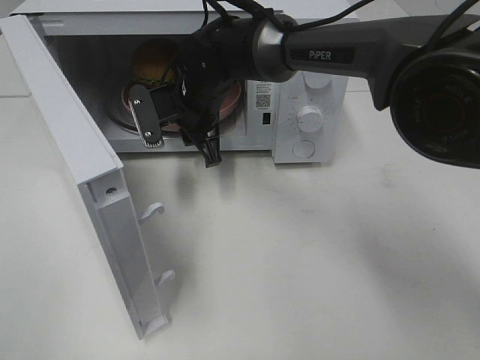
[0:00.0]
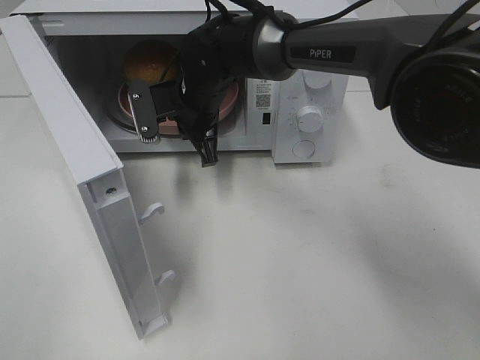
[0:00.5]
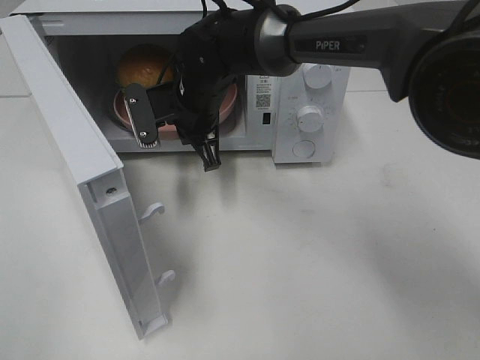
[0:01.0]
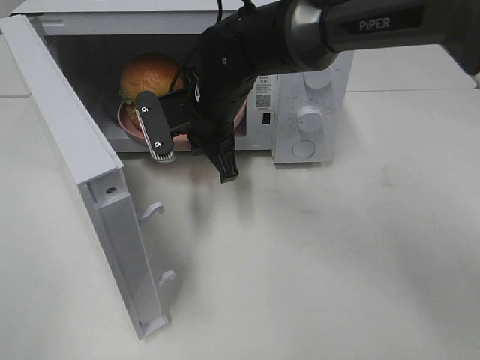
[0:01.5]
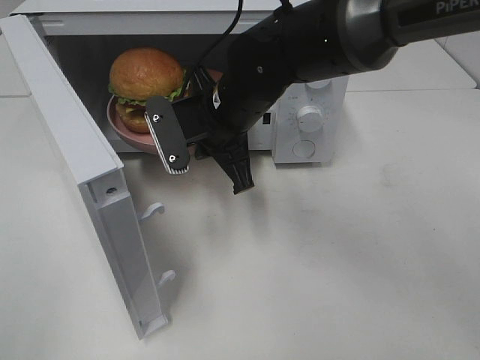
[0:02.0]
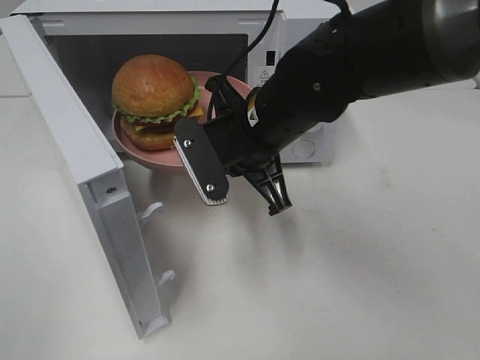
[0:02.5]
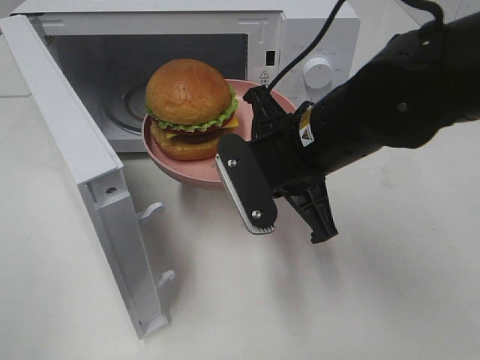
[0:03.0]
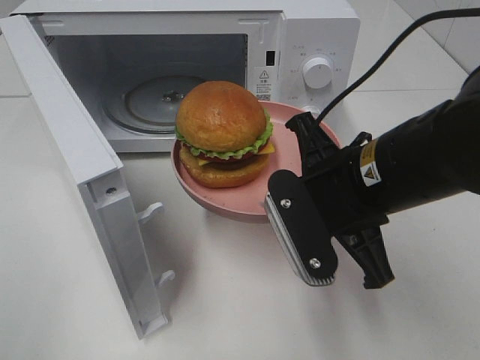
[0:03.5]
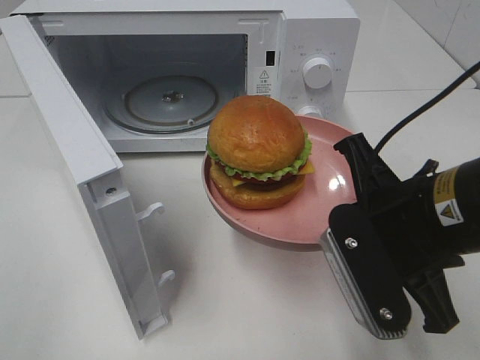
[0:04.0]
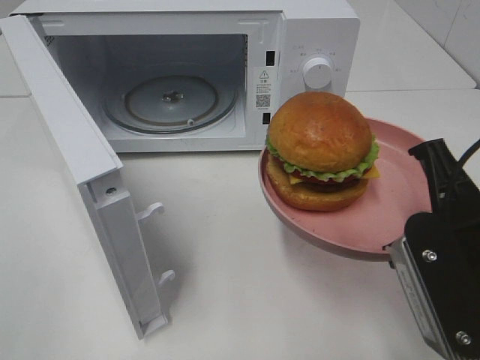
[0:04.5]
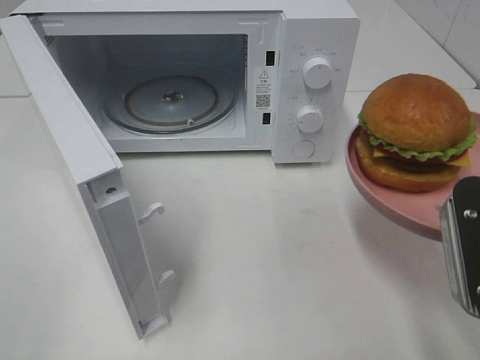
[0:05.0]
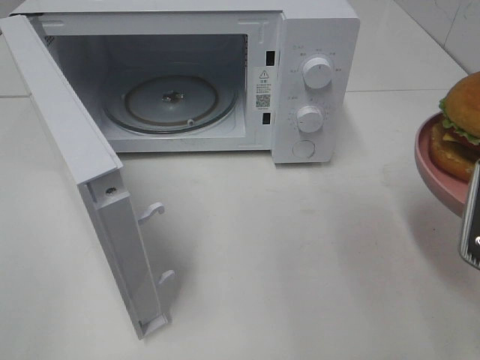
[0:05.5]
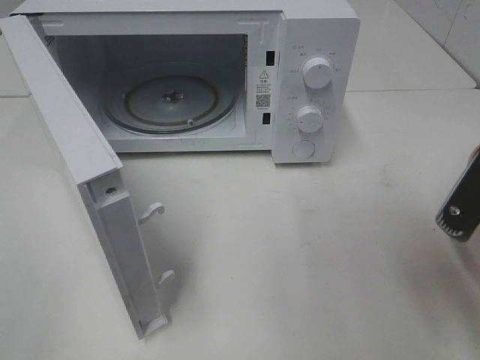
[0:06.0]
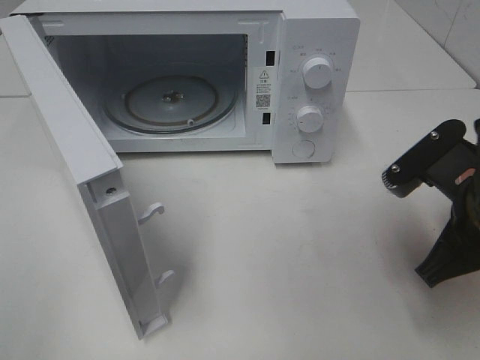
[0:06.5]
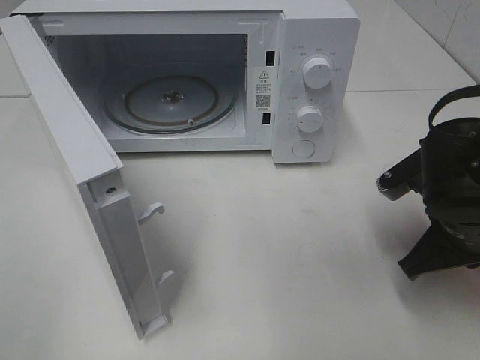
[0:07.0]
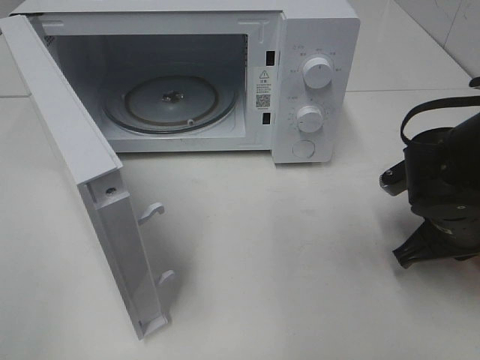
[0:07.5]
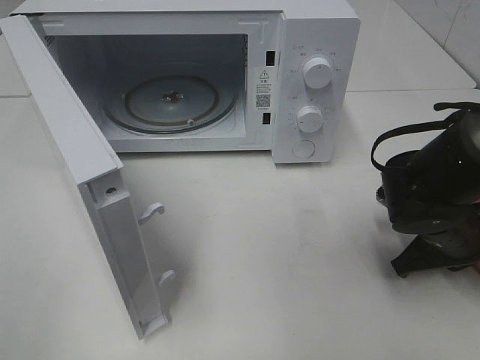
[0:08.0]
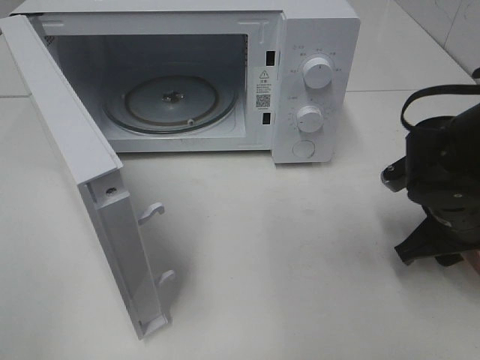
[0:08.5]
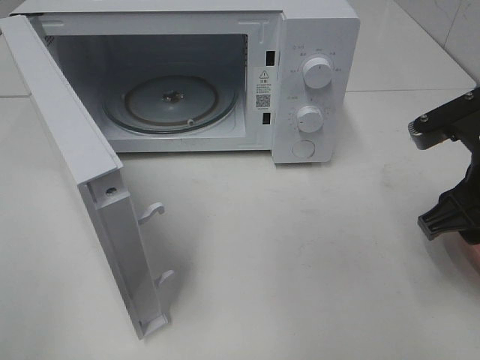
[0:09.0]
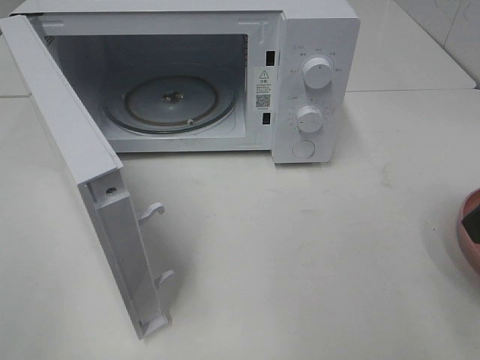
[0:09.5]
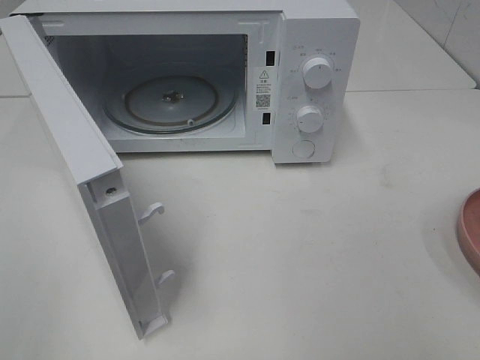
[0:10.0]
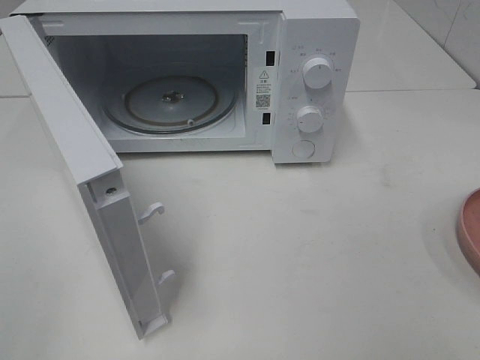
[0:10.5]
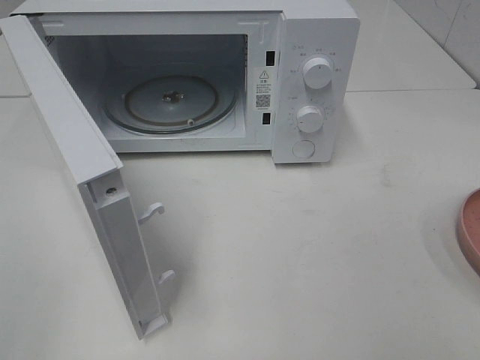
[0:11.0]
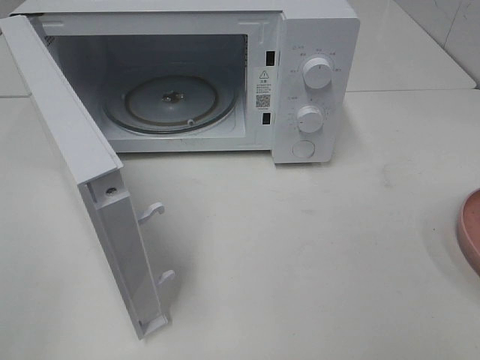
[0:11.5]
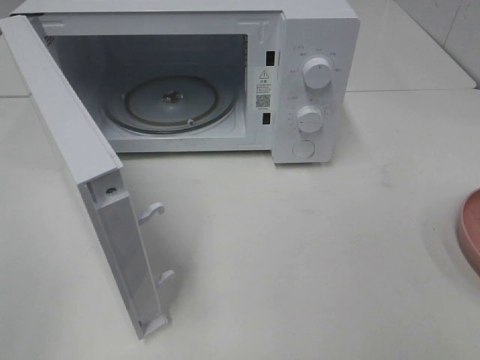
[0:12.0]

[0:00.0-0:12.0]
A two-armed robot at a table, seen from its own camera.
Task of the whole recording: Heat the burger.
Step, 0:00.5 to 0:08.0: Right hand: place the plate on the table.
0:00.0 to 0:02.0: The right gripper heads backward, covering some 10 cm.
0:02.0 to 0:04.0: The right gripper heads backward and to the right, covering roughly 25 cm.
0:04.0 to 0:06.0: The right gripper heads to the right, covering some 10 cm.
0:06.0 to 0:08.0: The right gripper is displaced downward and forward by about 15 cm.
0:08.0 to 0:10.0: The right gripper shifts approximately 30 cm upward and backward, and opens.

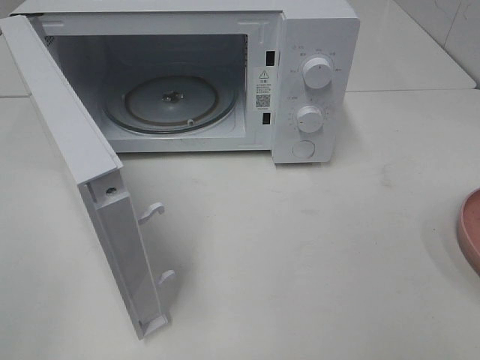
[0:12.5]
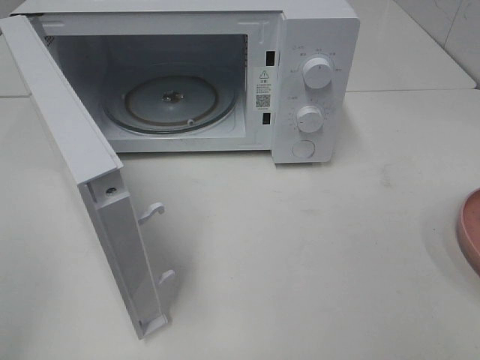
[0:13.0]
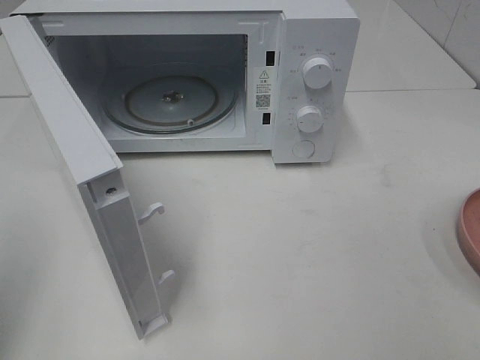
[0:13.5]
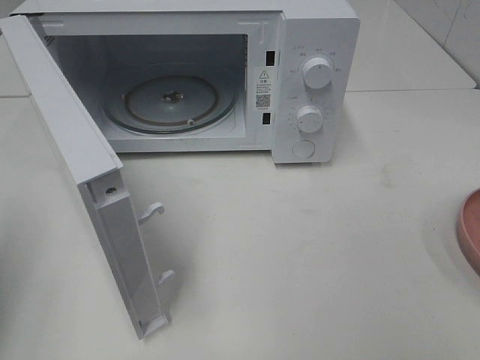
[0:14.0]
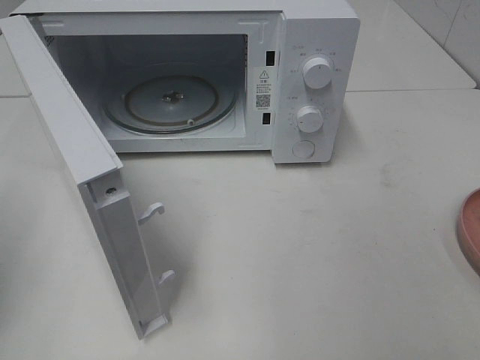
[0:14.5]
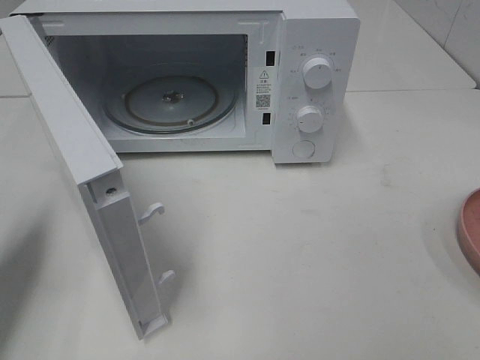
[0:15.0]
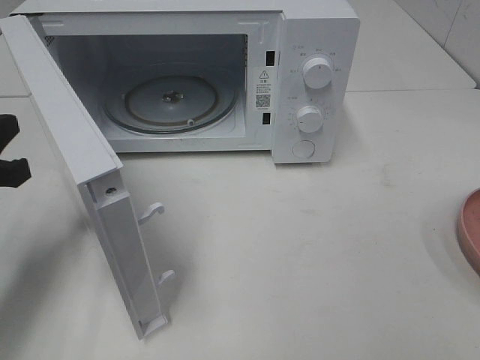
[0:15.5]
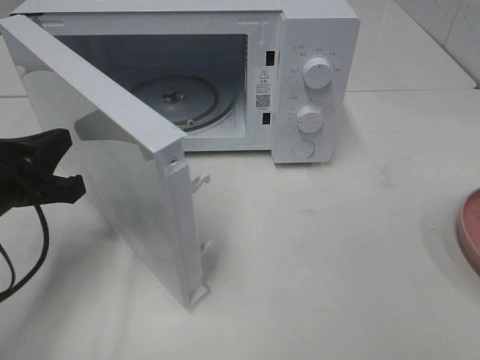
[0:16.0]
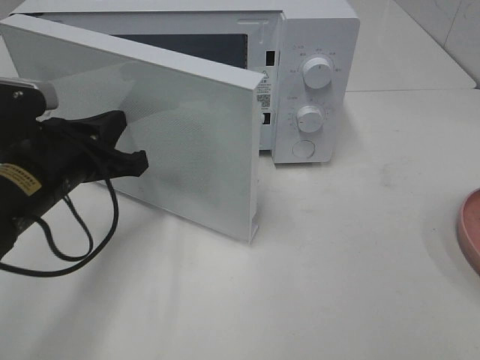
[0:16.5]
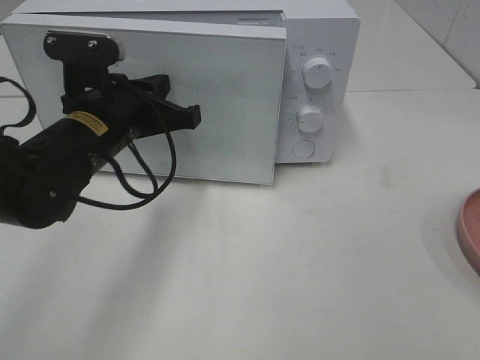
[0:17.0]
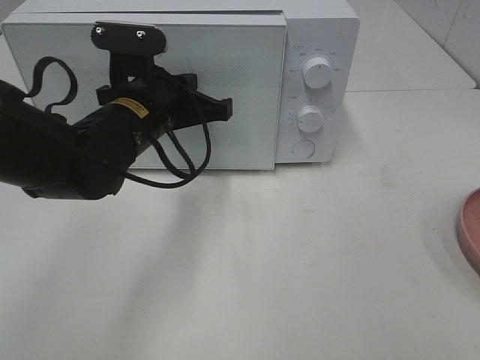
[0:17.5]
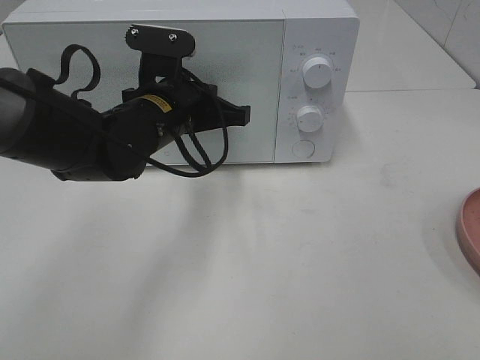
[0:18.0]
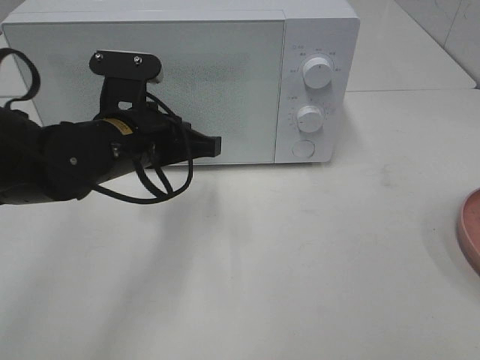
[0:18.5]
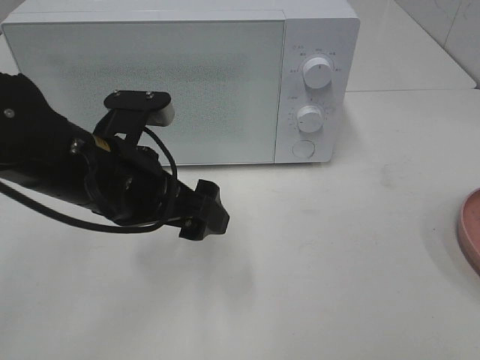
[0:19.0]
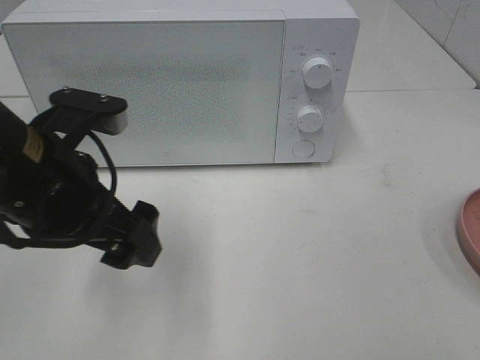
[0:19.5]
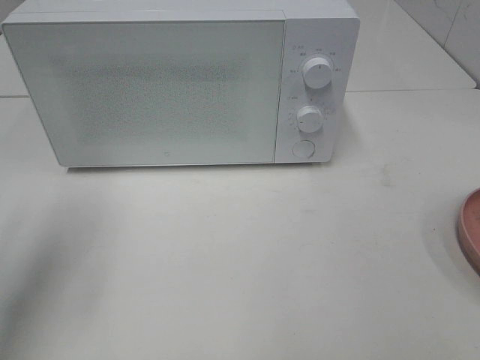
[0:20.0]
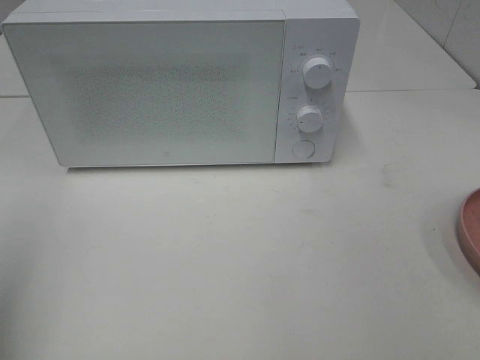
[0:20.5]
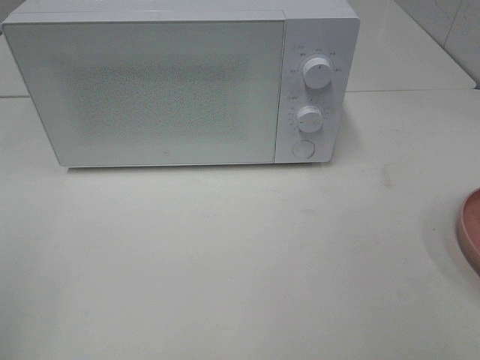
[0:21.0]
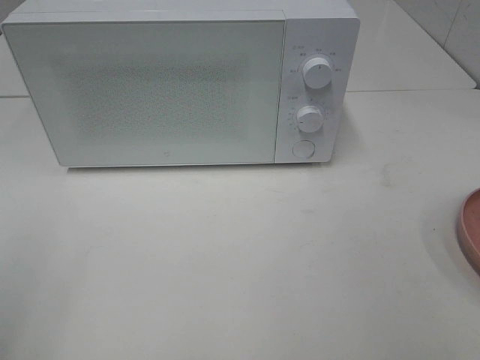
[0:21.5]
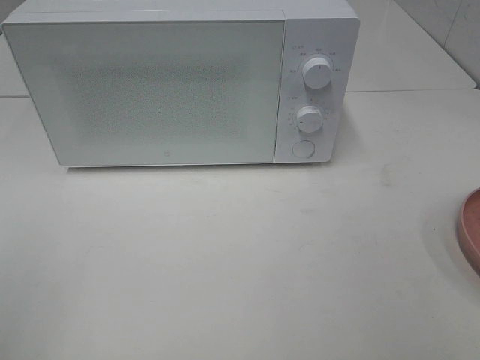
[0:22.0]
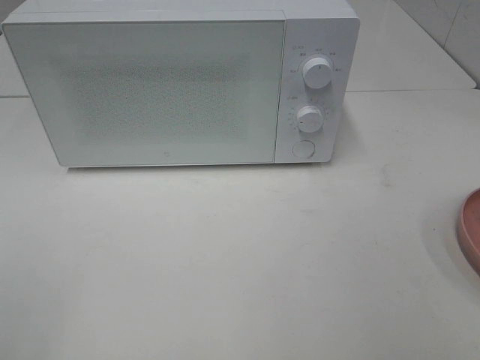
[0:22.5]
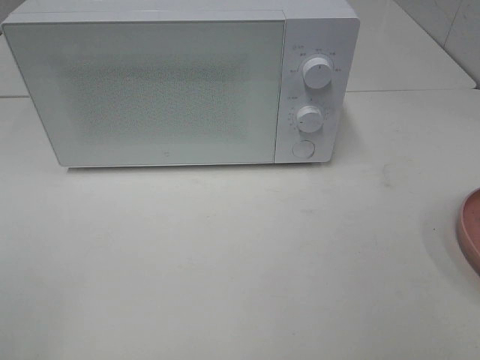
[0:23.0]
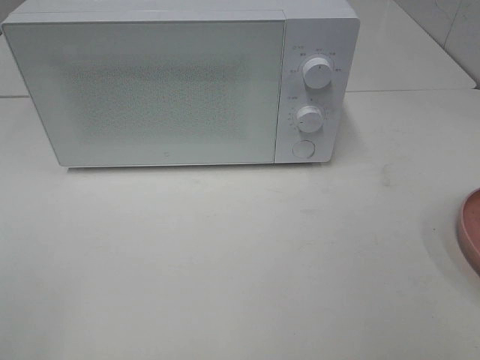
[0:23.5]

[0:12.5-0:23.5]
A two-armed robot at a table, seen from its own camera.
Task of the whole recording: Heat the burger.
Step, 0:12.5 to 0:18.5: Left hand: close the microwave door.
0:14.5 to 0:16.0: The left gripper is displaced to the right, downward and forward by roughly 15 cm.
0:16.0 to 0:18.0: The left gripper is displaced to the right and forward by approximately 20 cm.
0:18.0 to 0:20.0: The left gripper goes some 25 cm to the left, backward and upward, and opens its fingers.
0:20.0 to 0:21.5: The left gripper heads backward, covering approximately 15 cm.

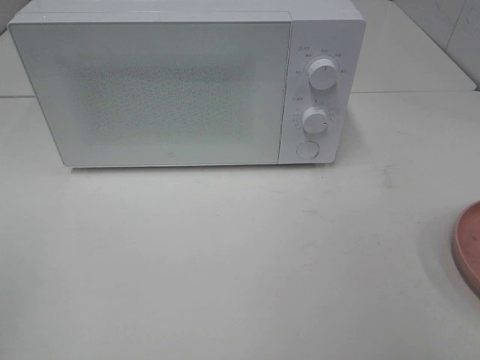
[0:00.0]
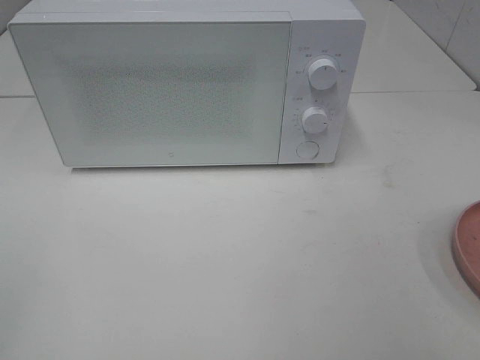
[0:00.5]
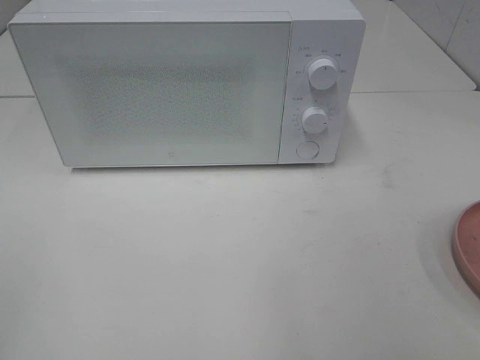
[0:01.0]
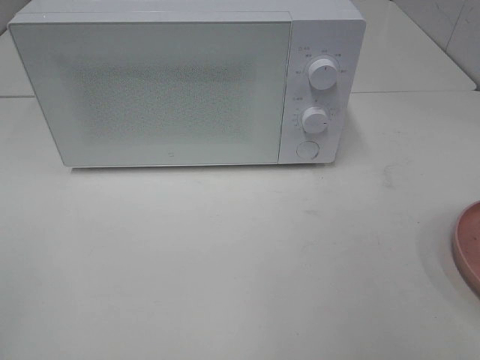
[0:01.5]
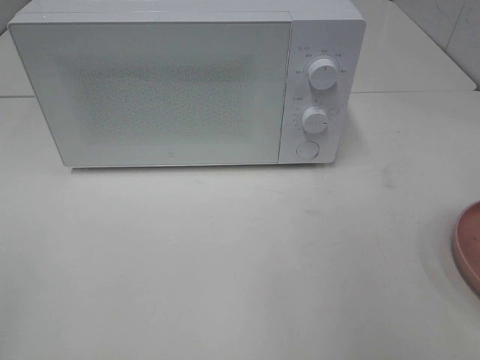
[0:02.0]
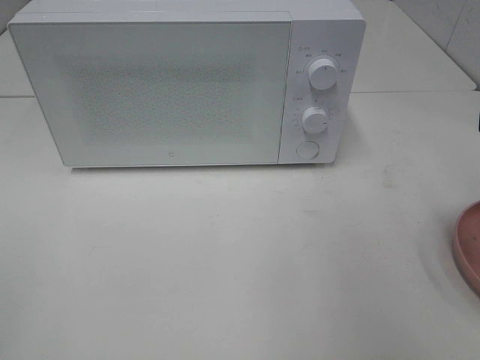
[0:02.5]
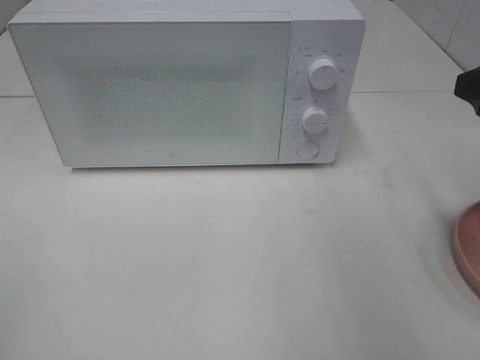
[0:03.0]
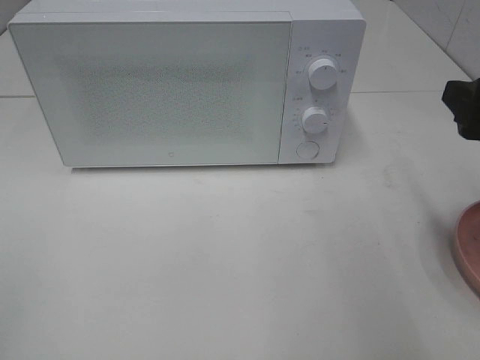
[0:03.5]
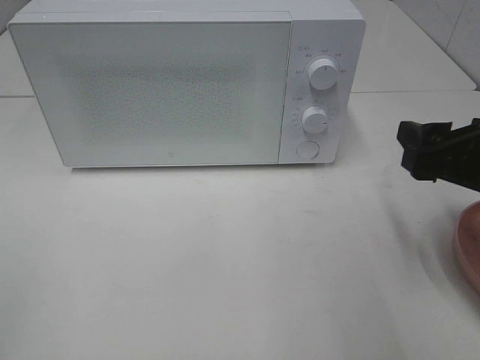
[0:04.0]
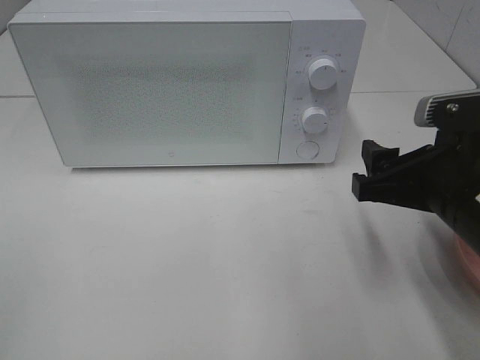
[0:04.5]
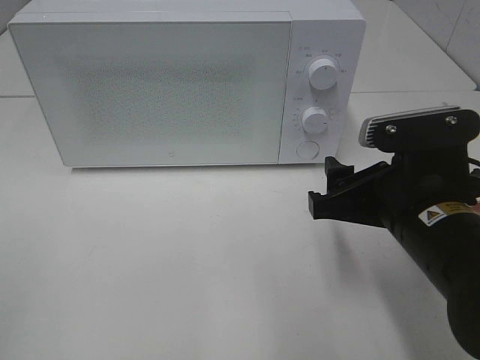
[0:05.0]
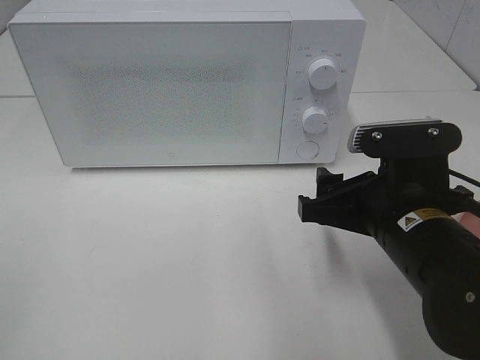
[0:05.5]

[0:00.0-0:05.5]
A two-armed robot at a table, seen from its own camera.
Task of the whole recording: Heat the burger.
0:02.0 to 0:03.5: The right gripper is displaced forward and downward by approximately 10 cm.
0:03.5 to 0:05.5: The right gripper heads to the left and downward, covering some 15 cm.
